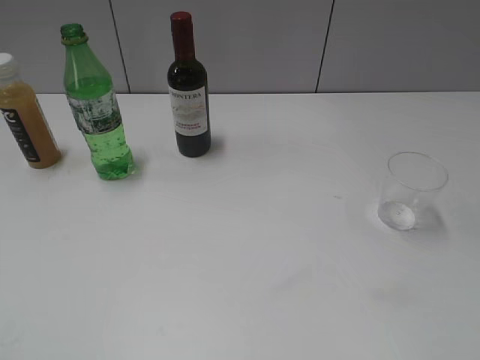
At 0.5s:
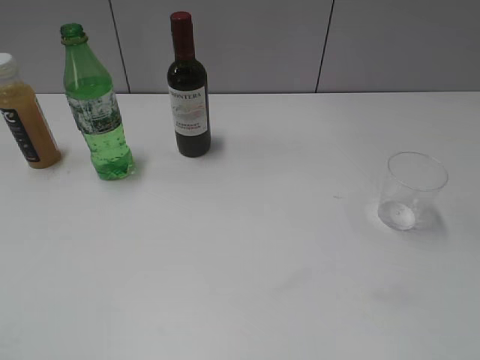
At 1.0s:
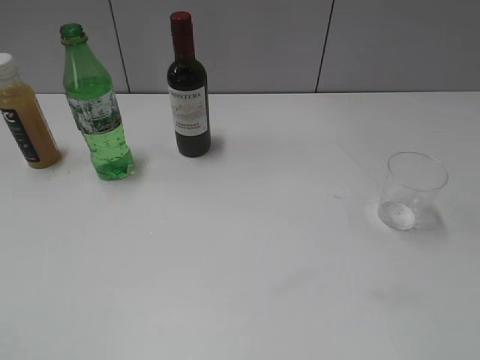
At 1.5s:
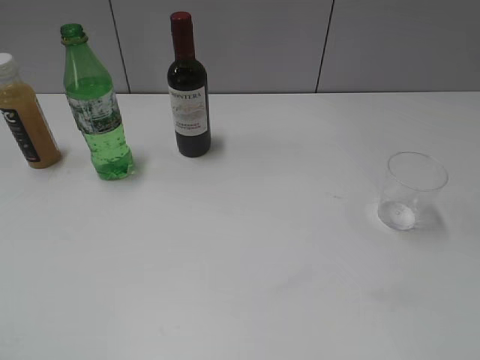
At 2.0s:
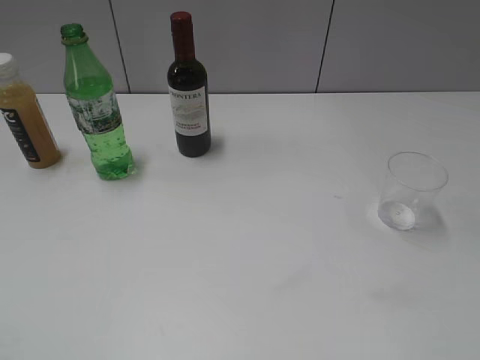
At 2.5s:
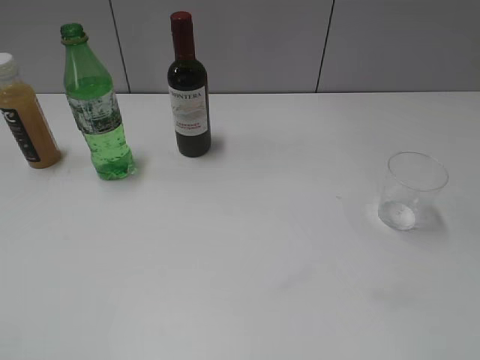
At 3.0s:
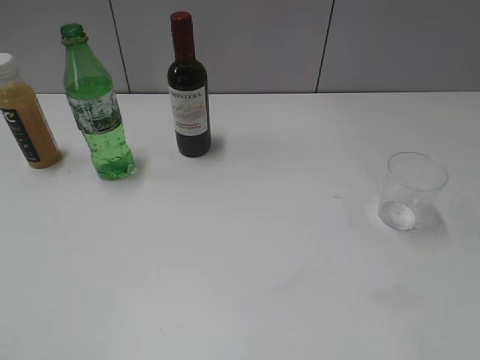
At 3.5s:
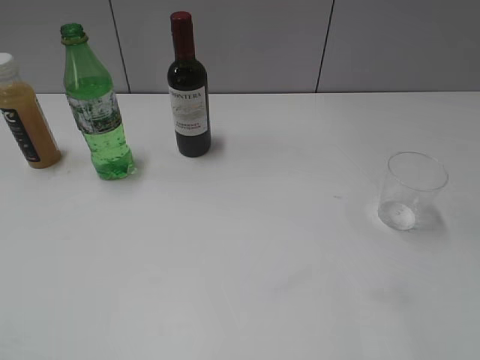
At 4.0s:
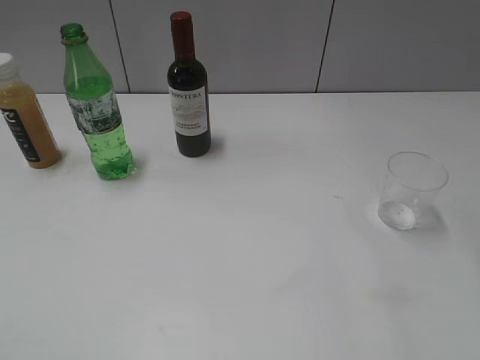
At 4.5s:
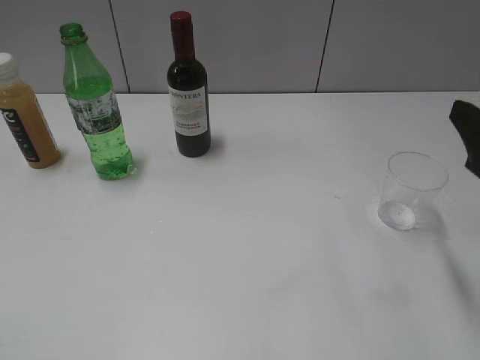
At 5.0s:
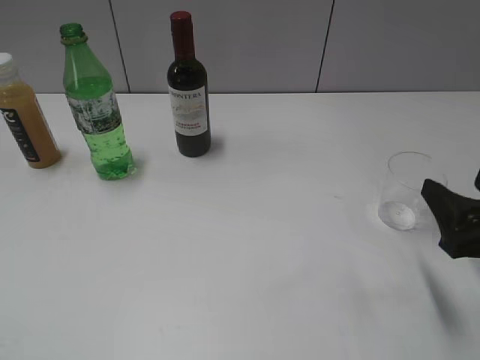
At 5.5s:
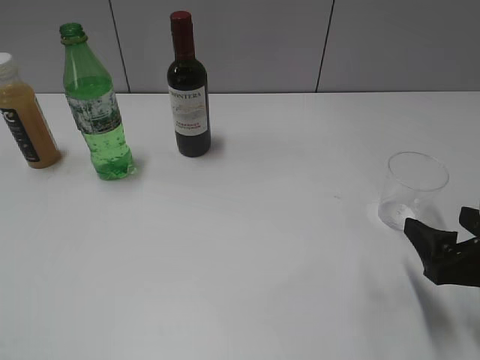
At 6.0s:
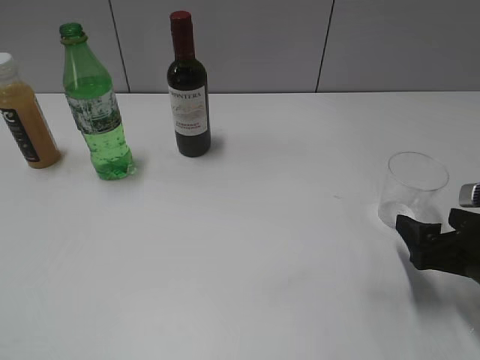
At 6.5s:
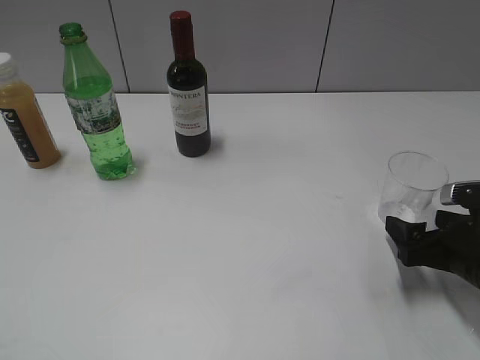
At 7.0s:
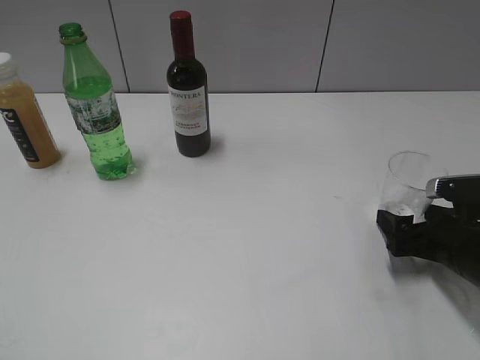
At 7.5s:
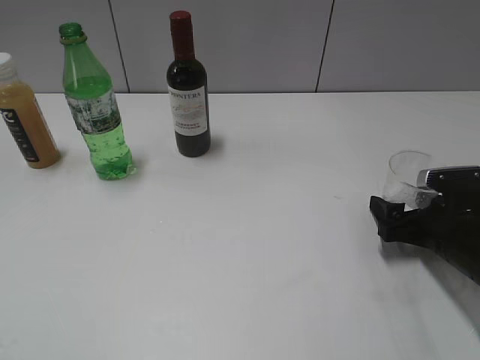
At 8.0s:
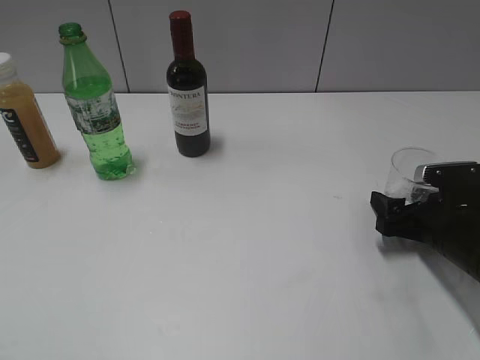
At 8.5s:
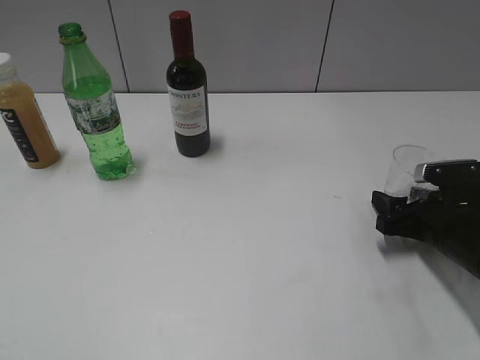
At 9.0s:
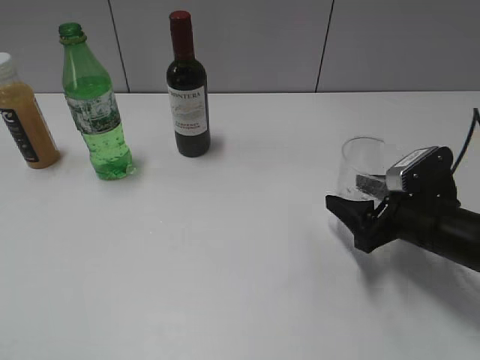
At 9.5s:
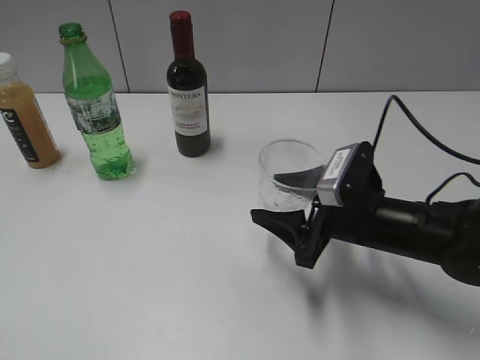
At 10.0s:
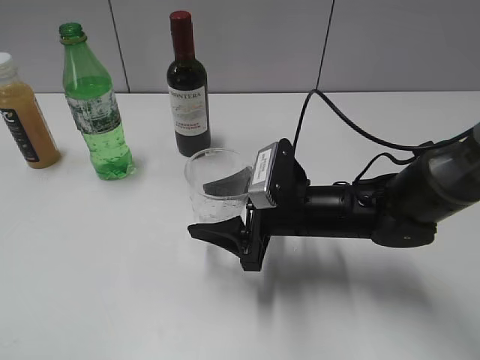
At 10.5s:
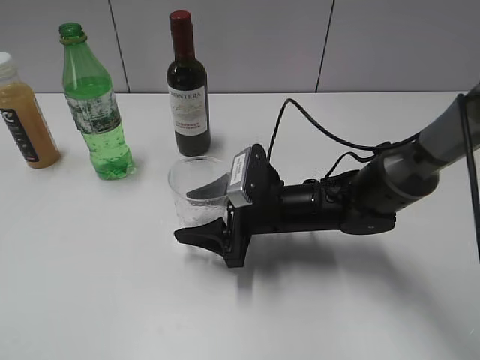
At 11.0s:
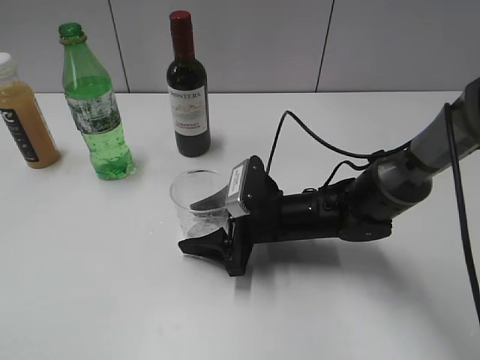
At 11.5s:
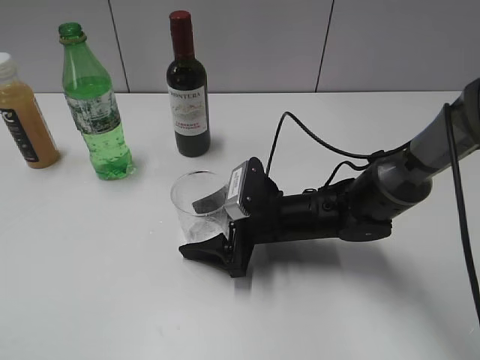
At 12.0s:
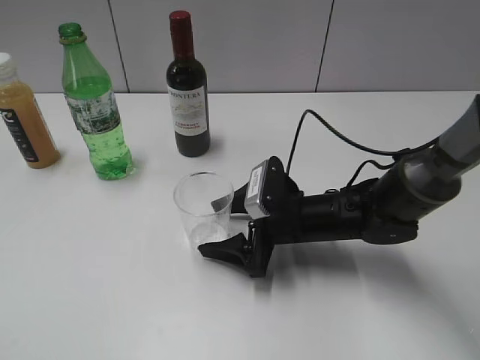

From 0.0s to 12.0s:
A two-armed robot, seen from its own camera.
Step, from 2.5s to 8.0s: Grasp the transparent cup with right gripper.
From 4.0s to 6.0s: The right gripper moves downward, approximately 20 cm, and opens its fingers.
From 6.0s to 8.0s: The right gripper travels forward by approximately 5 cm, and closes its fingers.
From 8.0s to 10.0s: The right gripper is displaced to the left by some 20 cm, and closes its fingers.
From 10.0s to 12.0s: The right gripper opens its fingers.

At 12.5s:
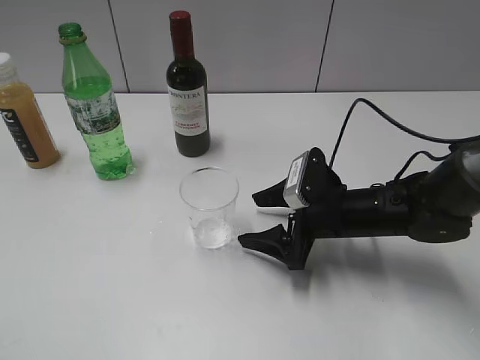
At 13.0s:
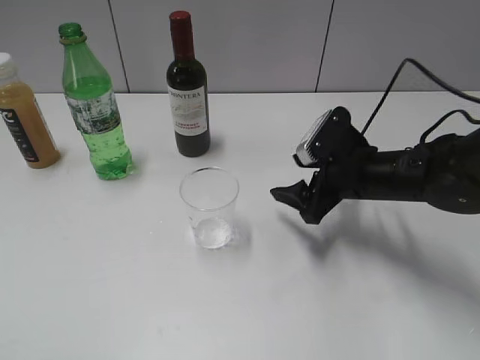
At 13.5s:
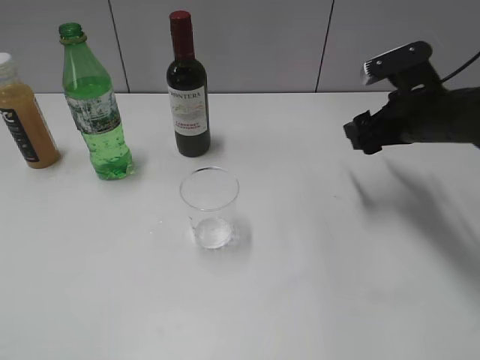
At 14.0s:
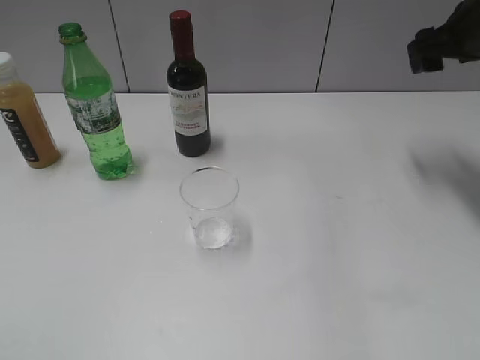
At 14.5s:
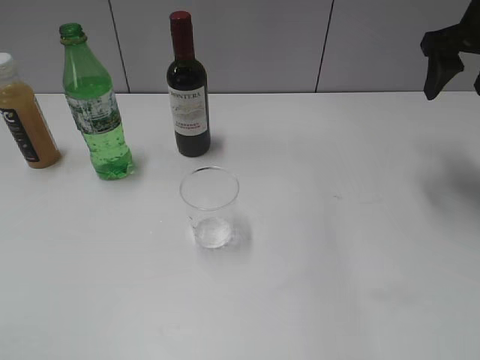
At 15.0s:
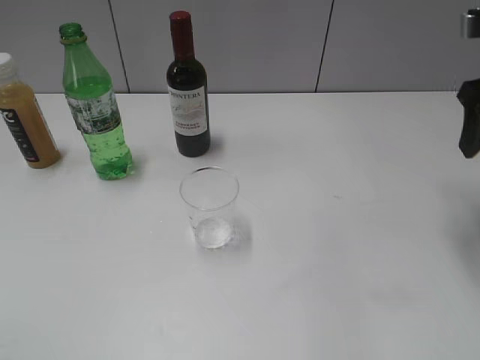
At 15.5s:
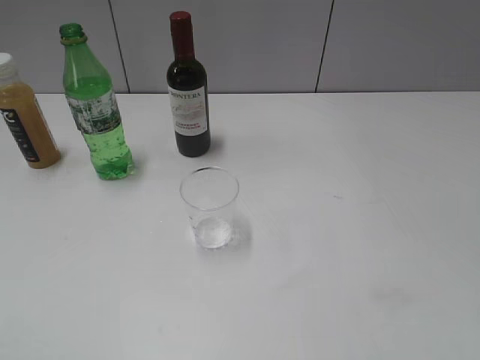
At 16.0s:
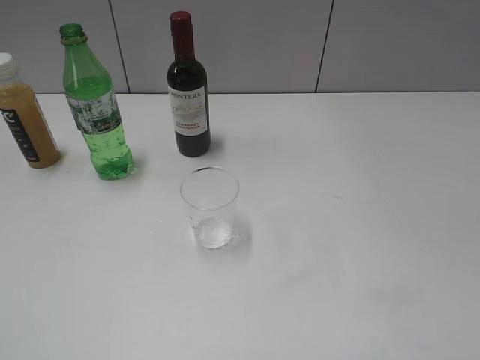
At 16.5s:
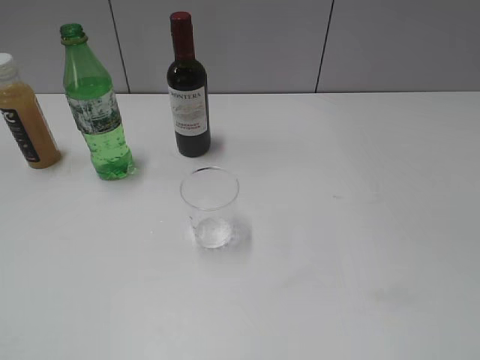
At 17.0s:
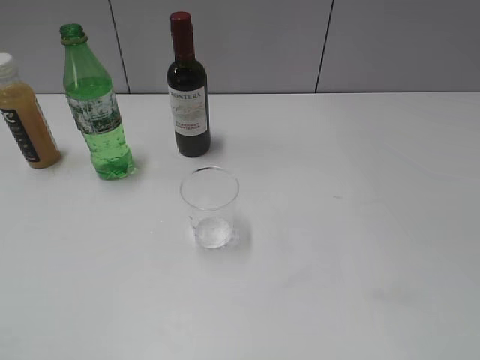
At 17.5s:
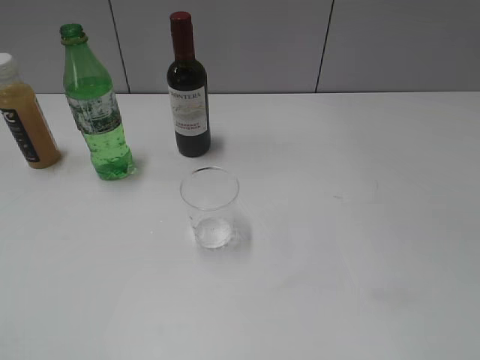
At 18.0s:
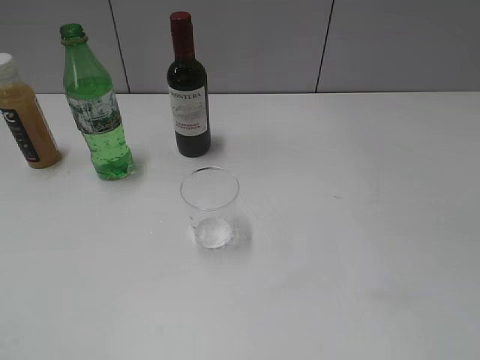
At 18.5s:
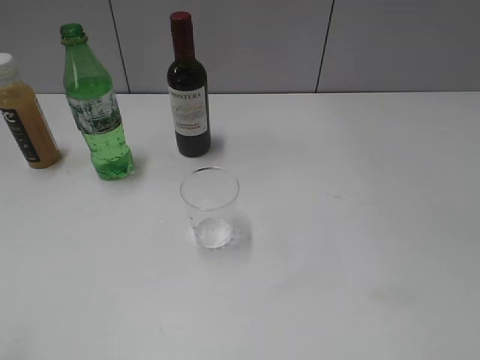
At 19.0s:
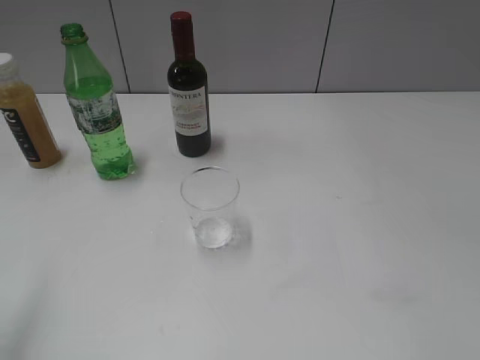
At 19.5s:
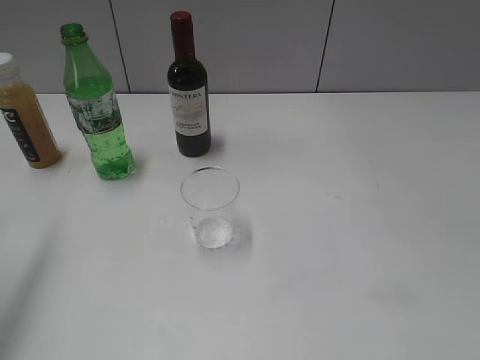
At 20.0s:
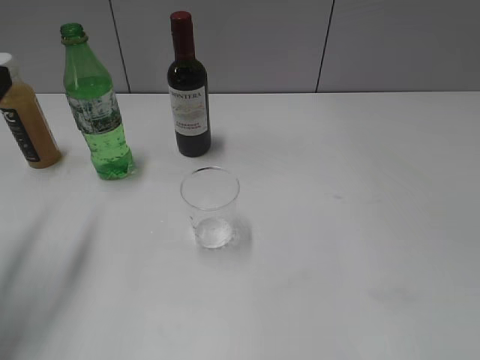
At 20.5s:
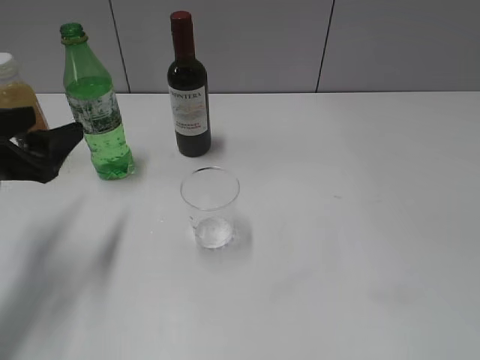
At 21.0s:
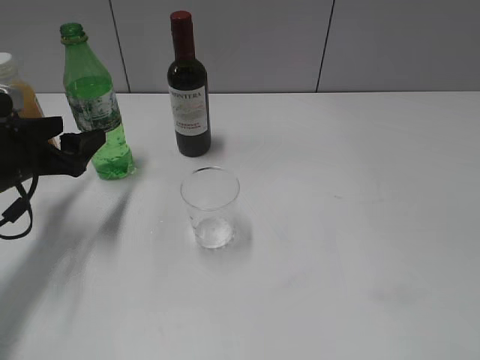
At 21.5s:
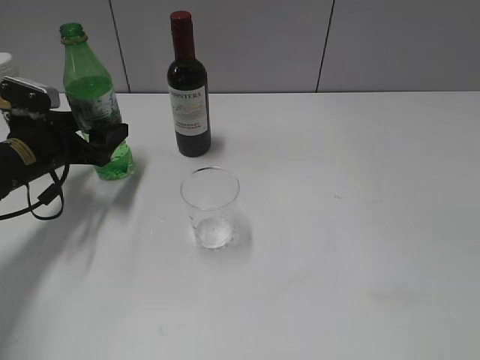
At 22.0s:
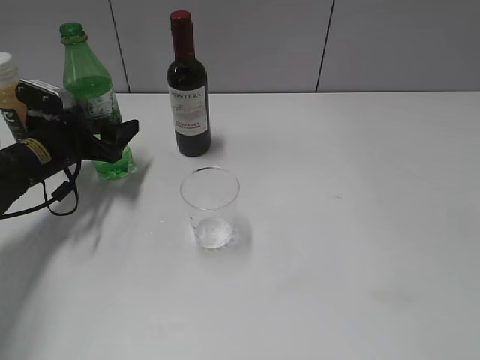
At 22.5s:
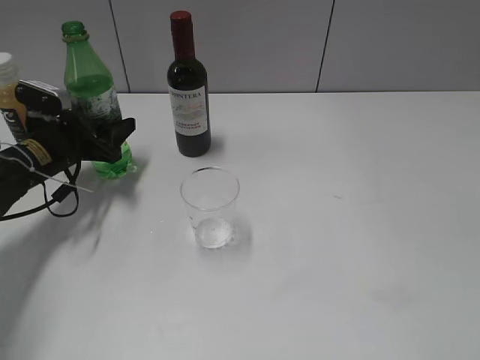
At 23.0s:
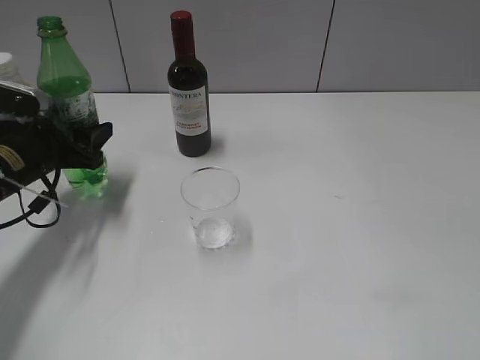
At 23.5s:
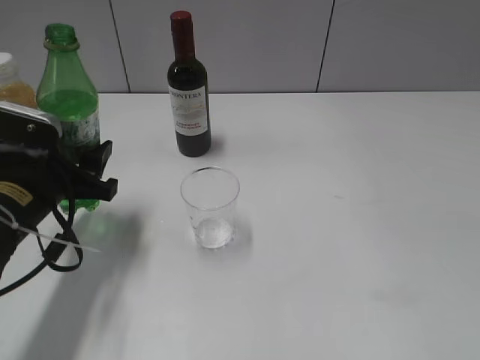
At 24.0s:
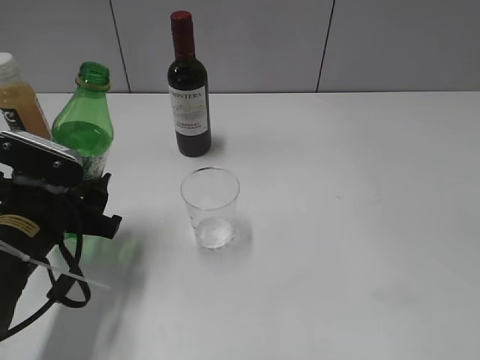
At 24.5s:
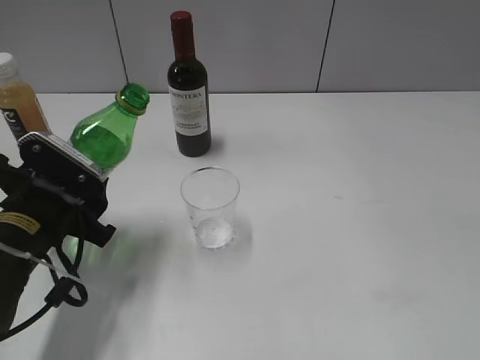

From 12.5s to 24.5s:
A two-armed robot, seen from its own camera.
Step, from 13.0s to 22.5s: Grasp the bottle with sprite with left gripper.
From 12.5s to 14.5s: The right gripper shifts approximately 30 cm upward, to the right and forward.
From 14.5s to 16.5s: The right gripper travels backward by approximately 35 cm.
From 18.5s to 20.5s: The left gripper is displaced forward and downward by about 25 cm.
From 20.5s to 22.5s: The left gripper heads forward and downward, covering some 15 cm, and closes.
From 22.5s to 24.5s: The left gripper is displaced backward by approximately 15 cm.

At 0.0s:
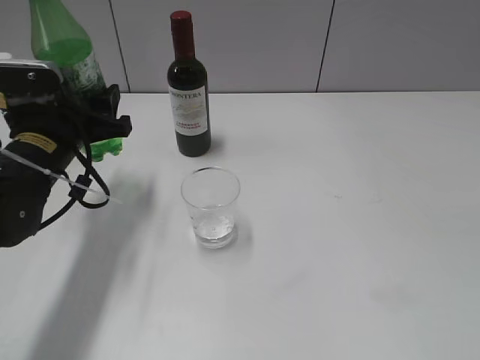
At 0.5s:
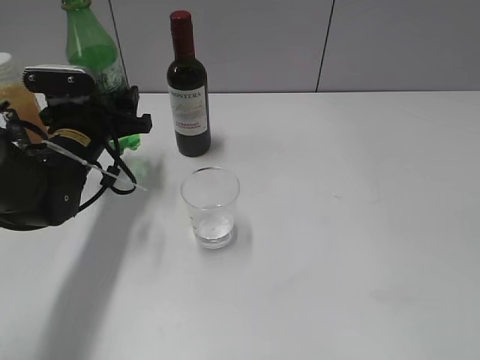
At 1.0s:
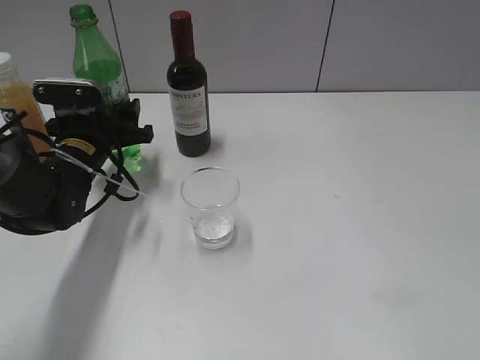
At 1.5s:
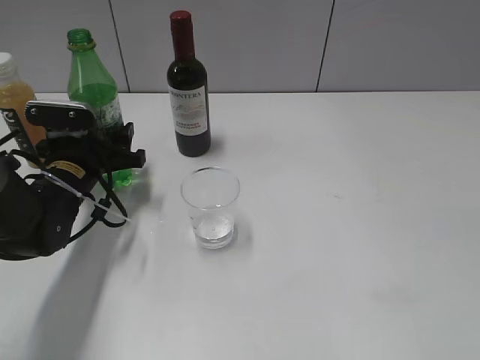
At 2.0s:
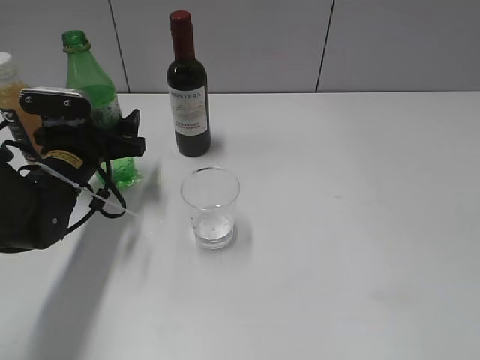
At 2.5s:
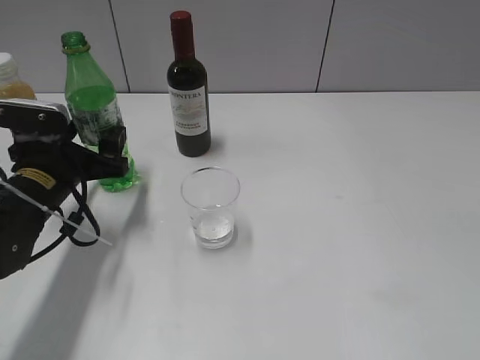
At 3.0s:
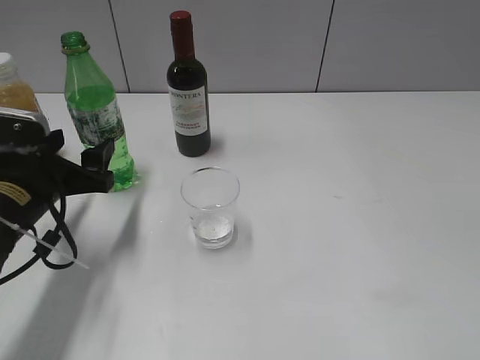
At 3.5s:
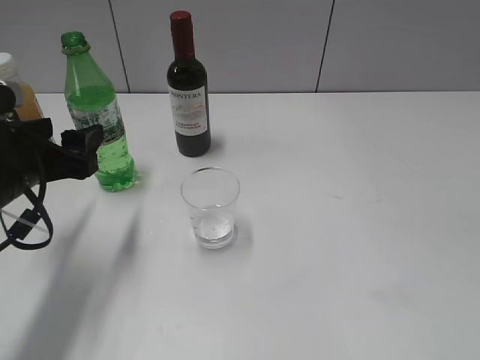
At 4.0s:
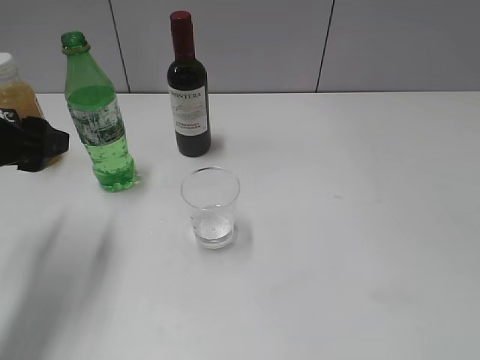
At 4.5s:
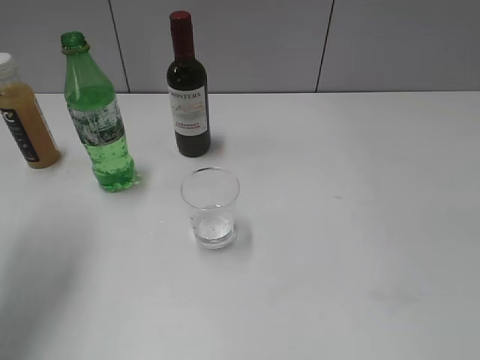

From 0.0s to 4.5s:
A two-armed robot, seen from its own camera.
Step, from 0.0s to 2.5s: Place the sprite bottle on the table with left gripper.
From 0.0s to 2.0s: The left gripper changes place by about 5 cm, and opens up.
From 2.0s to 4.5s: The left gripper is displaced upward by about 20 cm.
